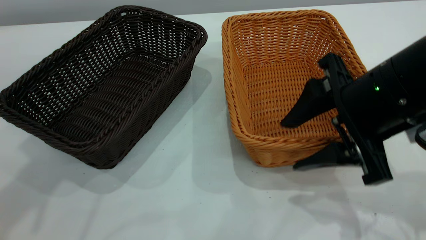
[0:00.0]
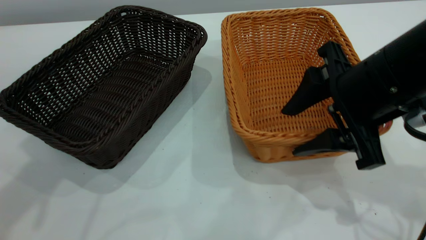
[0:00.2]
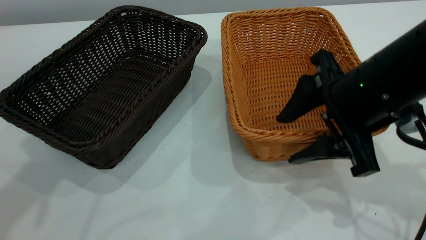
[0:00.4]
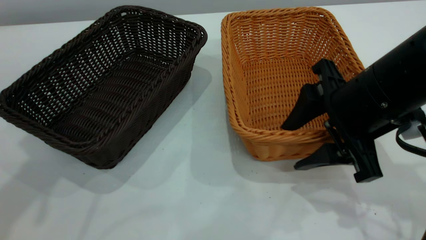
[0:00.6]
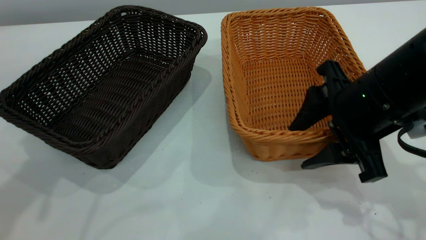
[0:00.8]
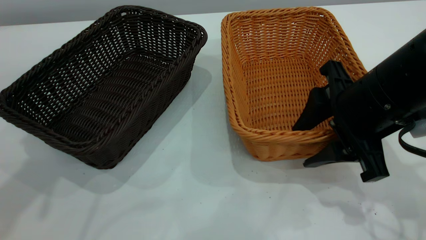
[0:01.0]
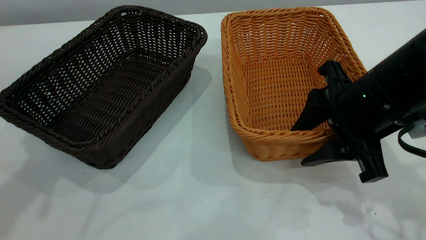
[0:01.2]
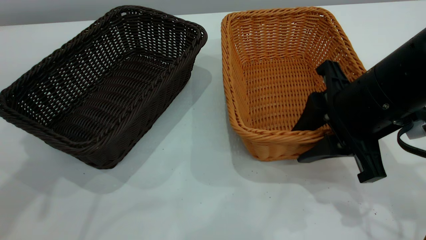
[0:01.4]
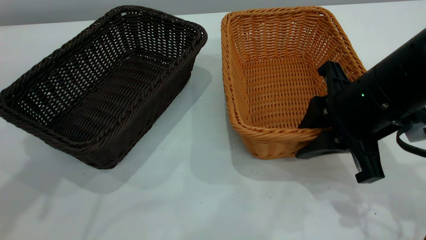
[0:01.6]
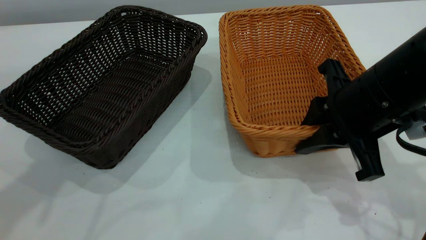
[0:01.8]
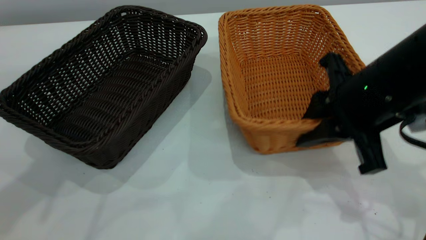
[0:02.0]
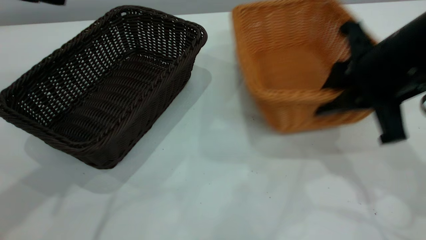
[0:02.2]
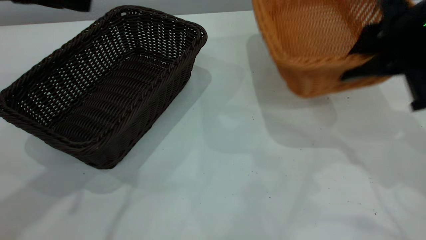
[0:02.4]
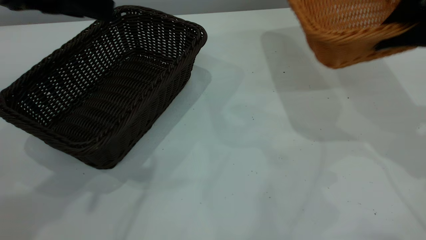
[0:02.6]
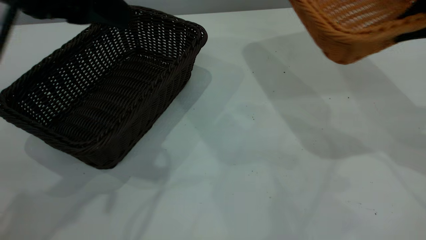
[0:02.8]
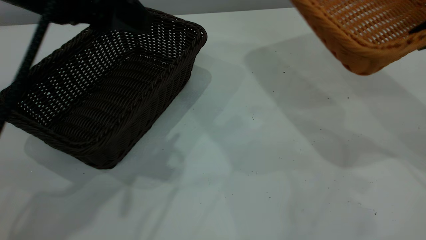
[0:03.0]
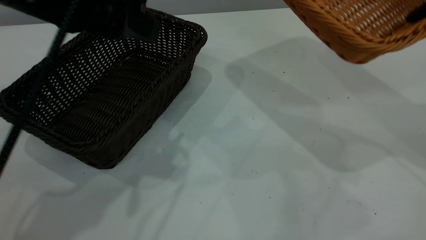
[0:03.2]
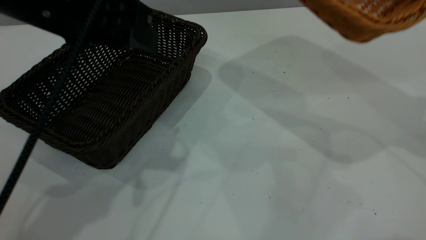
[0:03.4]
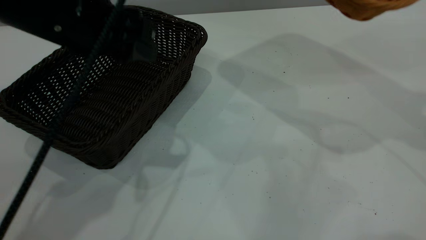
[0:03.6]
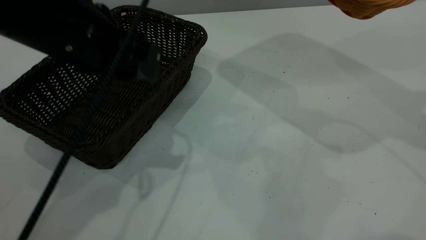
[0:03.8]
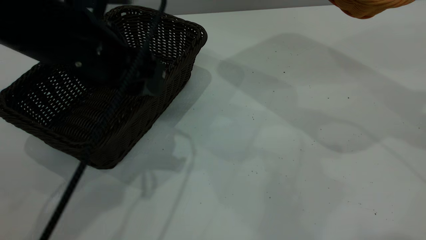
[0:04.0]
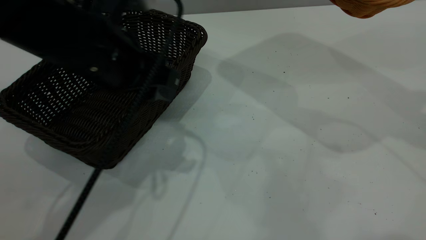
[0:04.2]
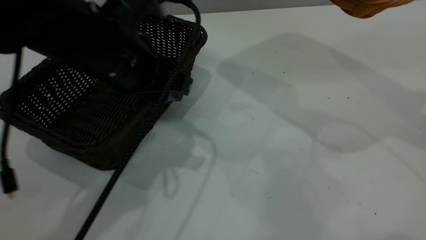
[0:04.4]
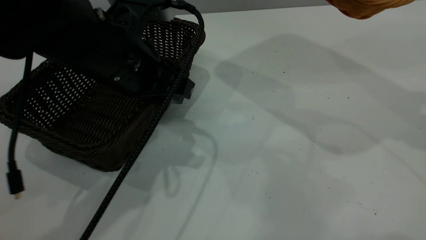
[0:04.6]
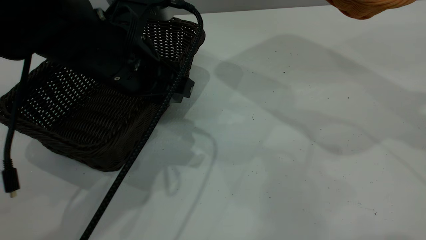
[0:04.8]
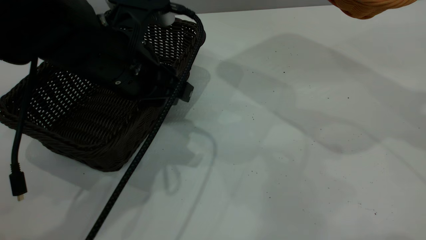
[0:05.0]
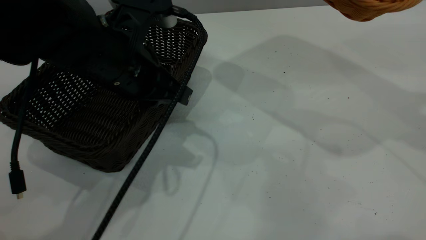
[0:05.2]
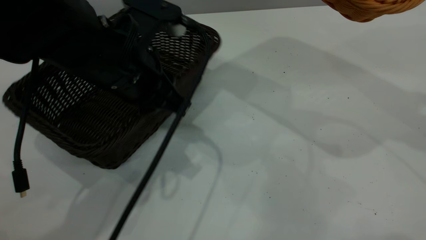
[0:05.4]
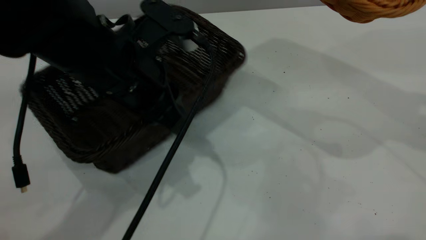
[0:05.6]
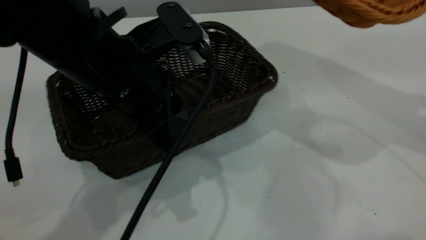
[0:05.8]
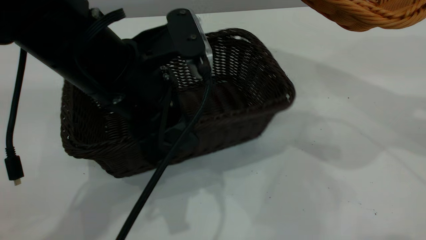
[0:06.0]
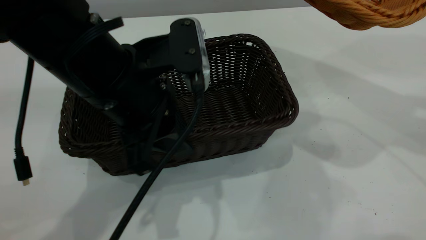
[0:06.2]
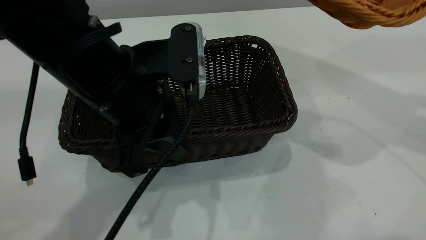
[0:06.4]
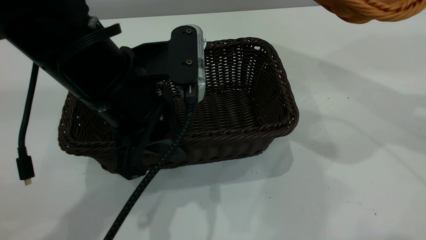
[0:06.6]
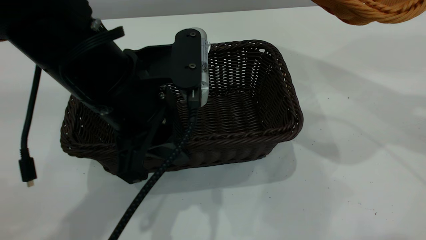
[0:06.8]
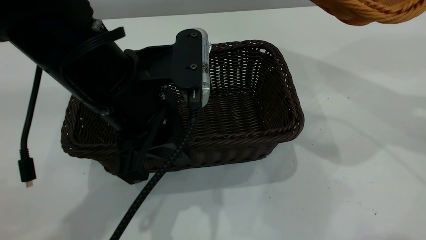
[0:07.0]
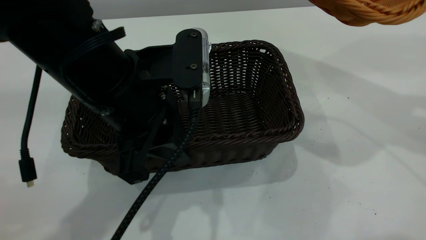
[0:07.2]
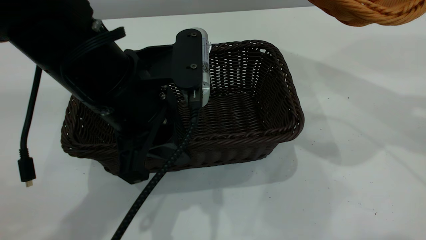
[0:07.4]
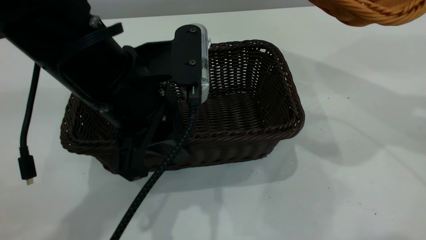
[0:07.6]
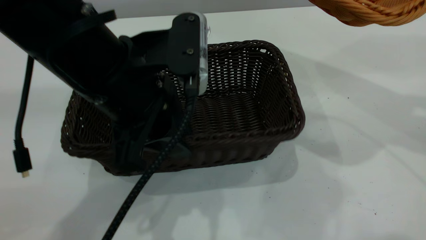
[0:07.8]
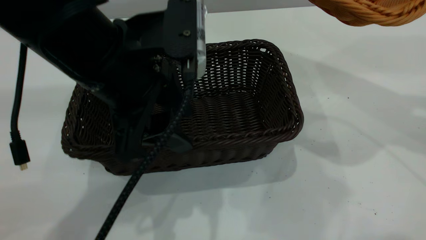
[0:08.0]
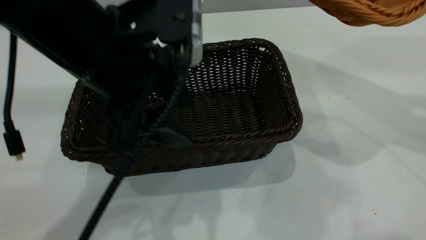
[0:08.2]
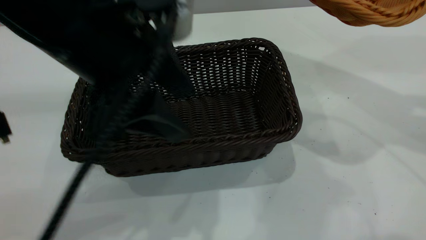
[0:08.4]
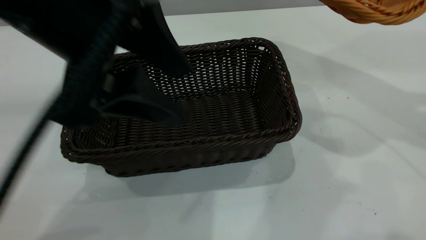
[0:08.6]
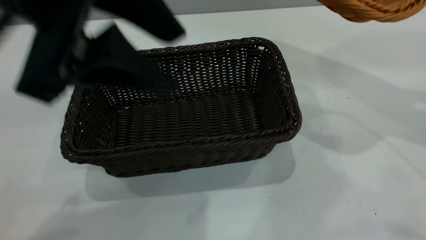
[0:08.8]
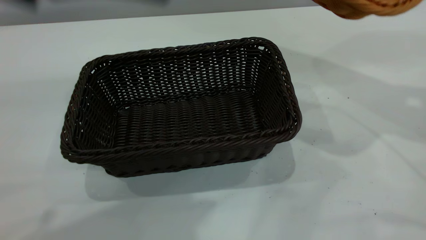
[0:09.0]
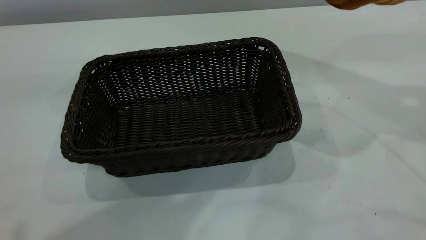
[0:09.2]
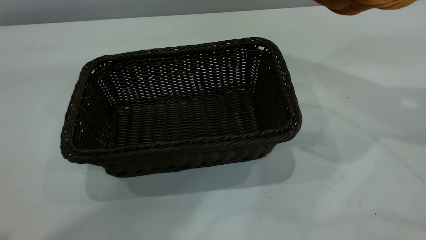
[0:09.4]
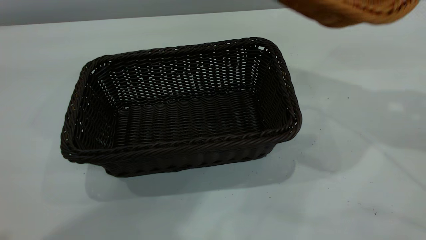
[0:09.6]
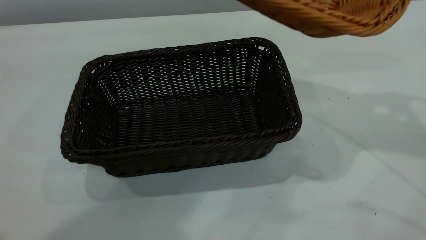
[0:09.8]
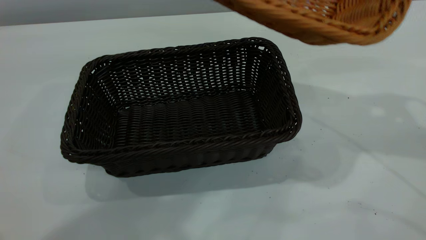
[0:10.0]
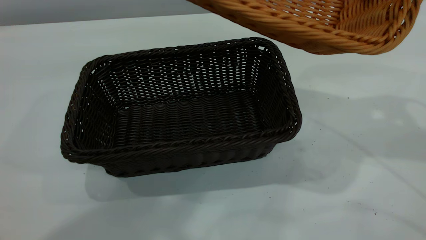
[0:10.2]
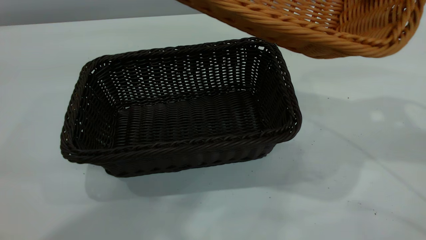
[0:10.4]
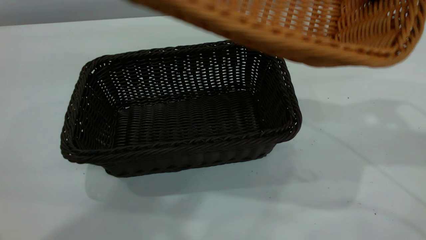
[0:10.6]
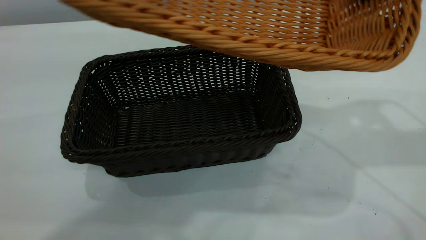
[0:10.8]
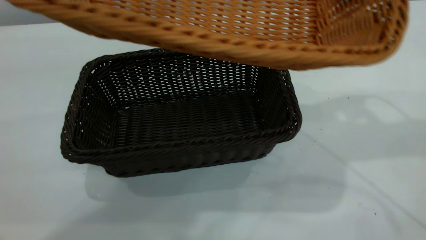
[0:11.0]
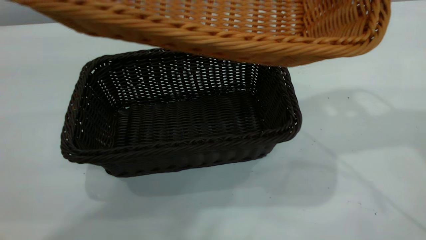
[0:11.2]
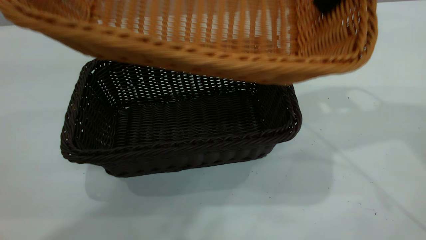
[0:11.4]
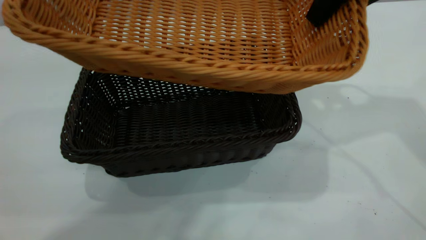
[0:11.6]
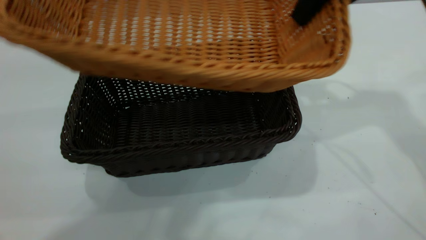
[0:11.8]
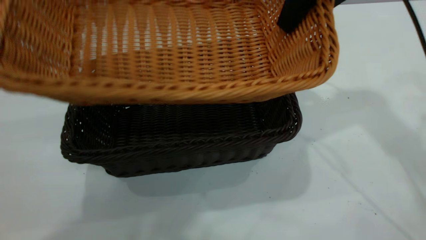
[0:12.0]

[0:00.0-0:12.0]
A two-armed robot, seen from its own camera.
Task of the whole recording: the left gripper grasp the black basket and place it in the center of the table, the right gripper grasp the brown basket and place it inside the black one.
Step, 0:00.0 to 0:02.2: Pick up the light basket with the right gripper.
Step, 0:02.4 to 0:08.6: Move the dark basket to the center of view.
0:00.0 to 0:01.6: The right gripper closes.
0:01.6 to 0:03.0: The left gripper goes some 10 cm to the right and downward. The right gripper heads to the right and upward, covering roughly 15 cm.
0:03.0 to 0:04.4: The right gripper shifts roughly 5 cm upward, while the left gripper is displaced downward by some 10 cm.
0:04.4 to 0:06.0: The left gripper closes its fingers.
0:06.0 to 0:07.6: The grippers stay close to where they were, moving slightly.
0:07.6 to 0:09.0: The left gripper travels upward by roughly 20 cm, and opens up.
0:09.0 to 0:10.4: The left gripper goes approximately 10 cm upward.
0:10.4 to 0:12.0: The right gripper shifts some 10 cm to the left and forward.

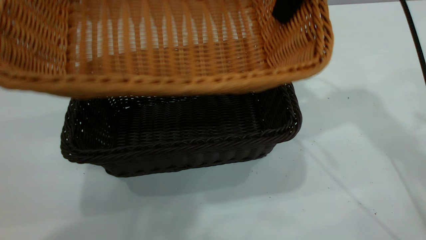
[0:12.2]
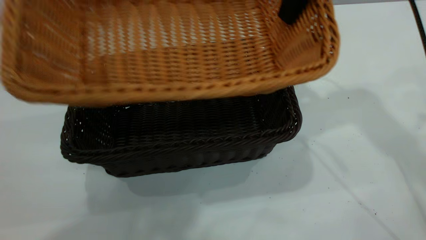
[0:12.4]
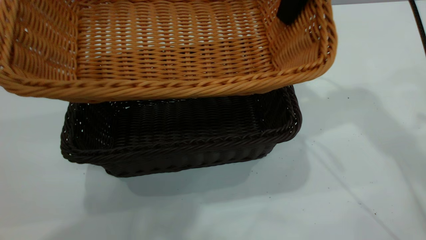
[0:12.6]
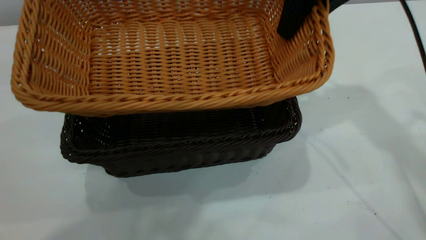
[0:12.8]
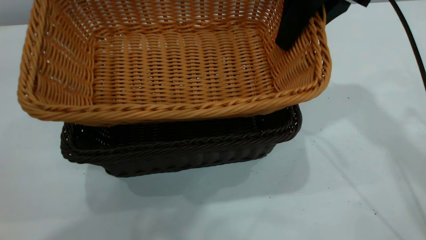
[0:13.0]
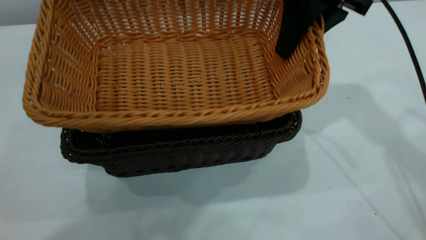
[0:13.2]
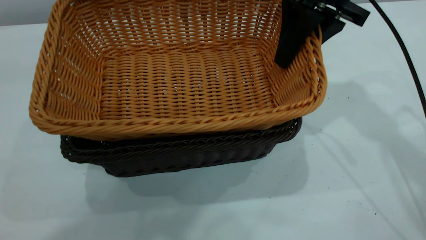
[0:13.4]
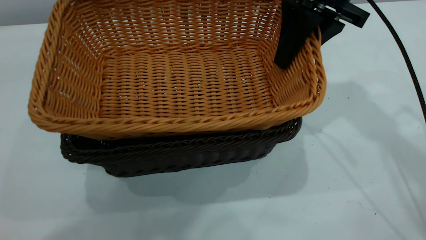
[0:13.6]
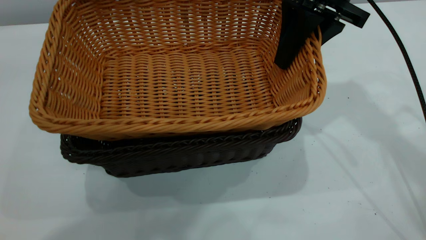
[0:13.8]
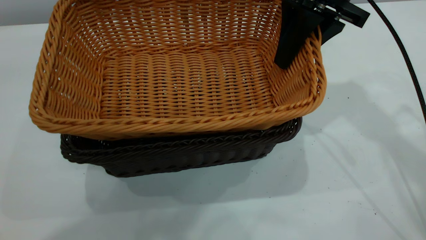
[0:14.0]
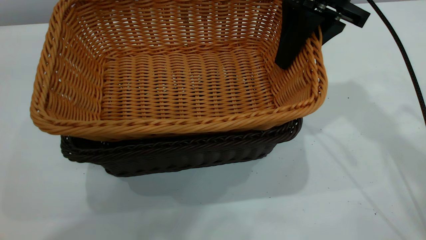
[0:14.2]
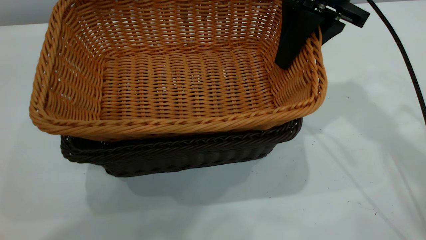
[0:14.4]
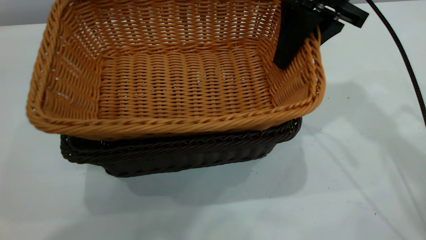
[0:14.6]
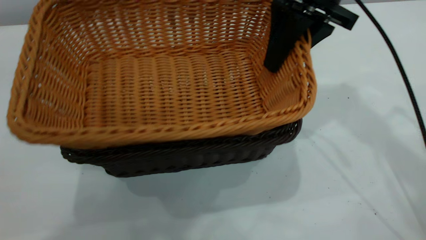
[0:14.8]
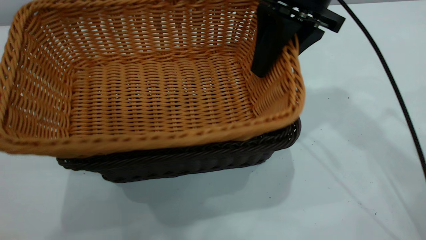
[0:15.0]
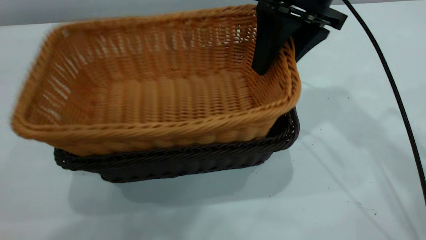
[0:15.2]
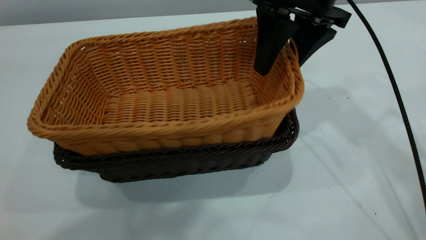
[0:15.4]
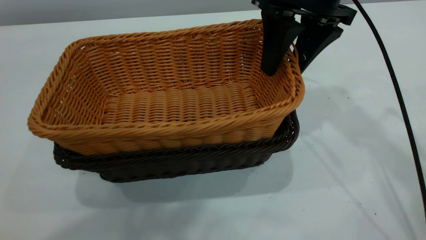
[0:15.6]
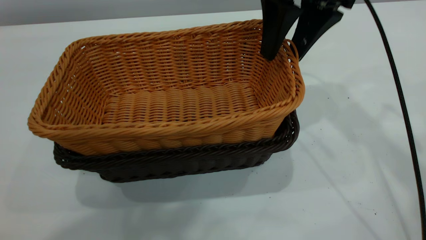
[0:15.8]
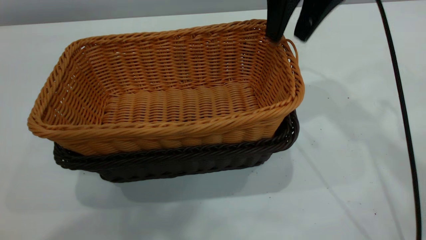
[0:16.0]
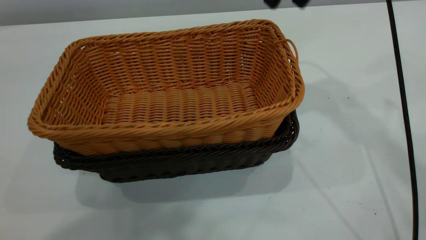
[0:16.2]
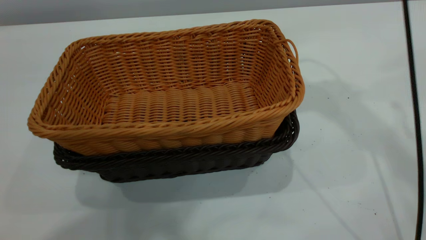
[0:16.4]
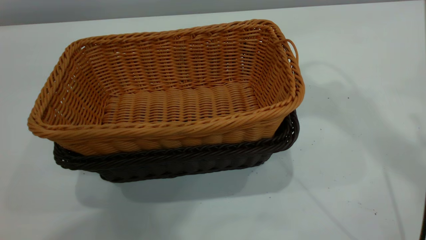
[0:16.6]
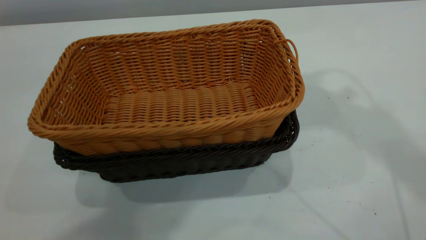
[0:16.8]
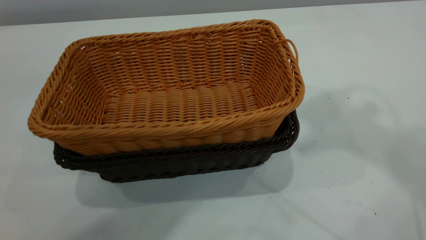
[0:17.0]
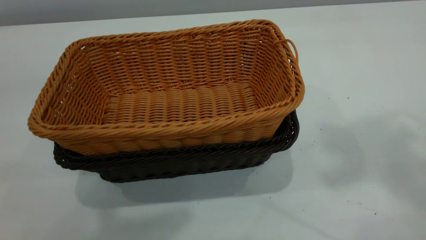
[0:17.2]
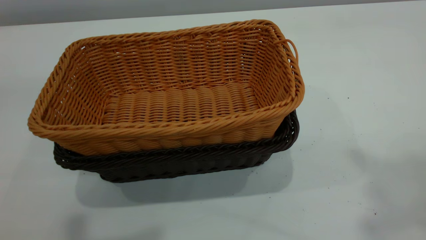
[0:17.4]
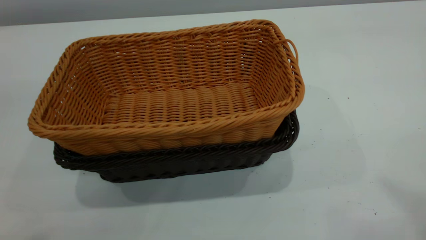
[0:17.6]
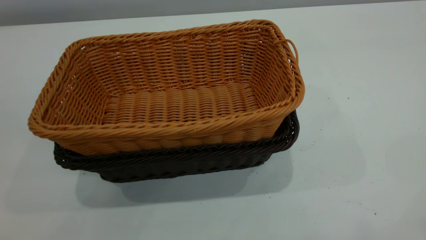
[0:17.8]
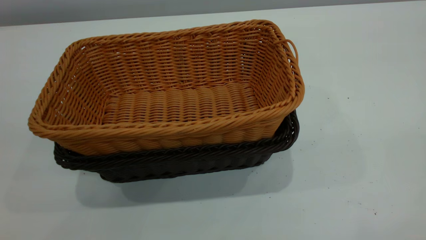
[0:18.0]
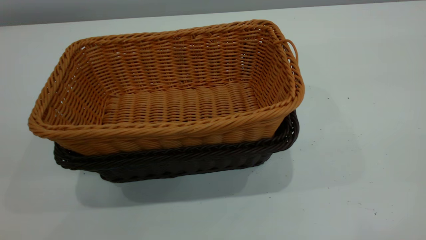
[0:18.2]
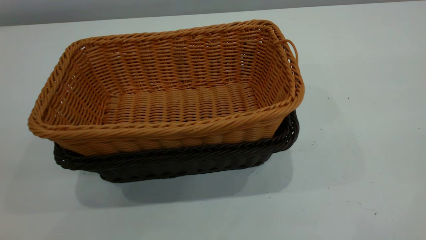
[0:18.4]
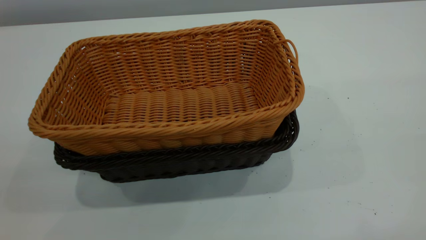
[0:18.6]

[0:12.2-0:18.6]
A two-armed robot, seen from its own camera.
Task of the whole recording: the left gripper grasp the black basket and place it in the center of the table, the right gripper grasp the brown basket and place it inside the black one.
Step, 0:12.2 to 0:16.0: Place the light basket on the dark basket.
0:12.2 to 0:13.8: The right gripper moves downward, approximately 5 cm.
0:13.8 to 0:15.4: The right gripper opens up.
0:15.4 to 0:17.0: The right gripper travels upward by roughly 30 cm, and closes. The left gripper closes up.
